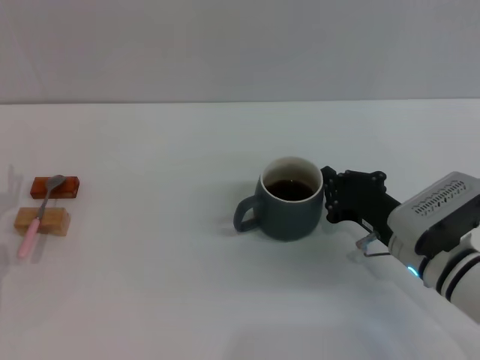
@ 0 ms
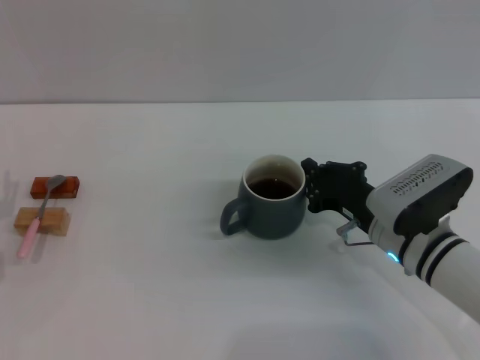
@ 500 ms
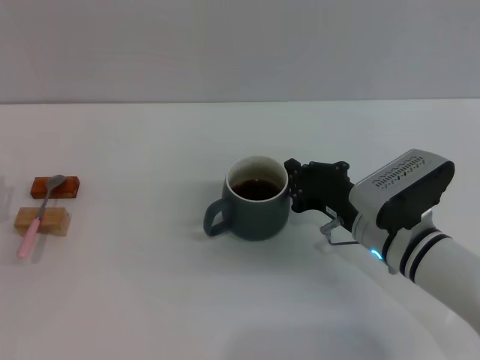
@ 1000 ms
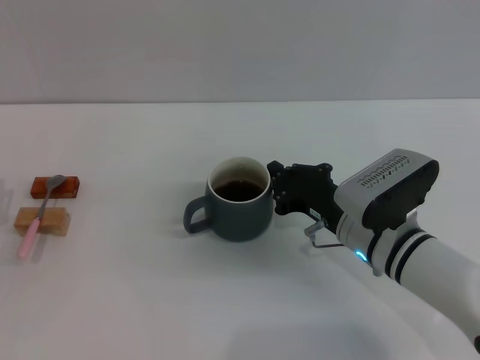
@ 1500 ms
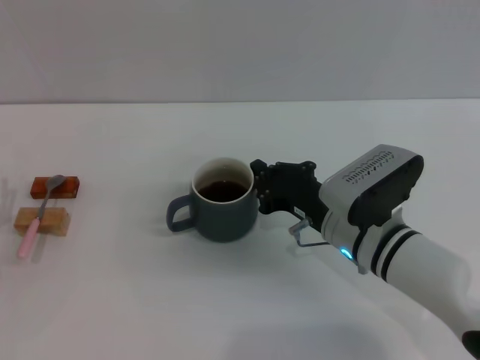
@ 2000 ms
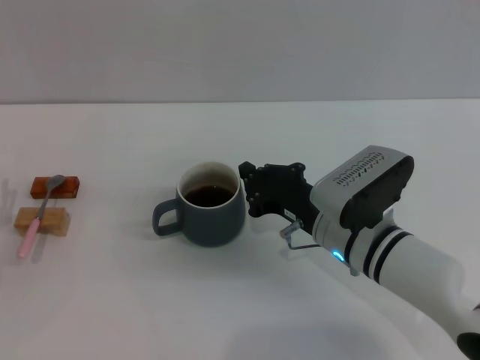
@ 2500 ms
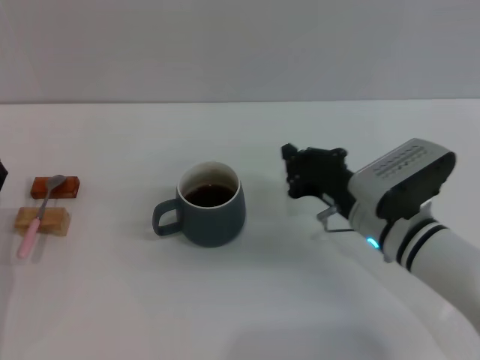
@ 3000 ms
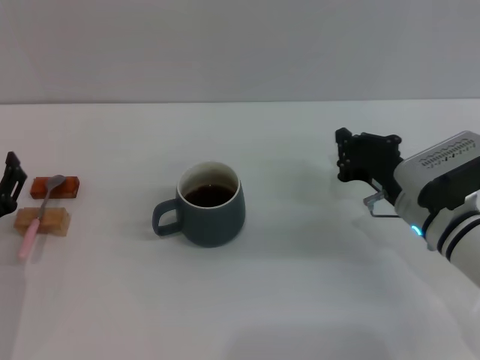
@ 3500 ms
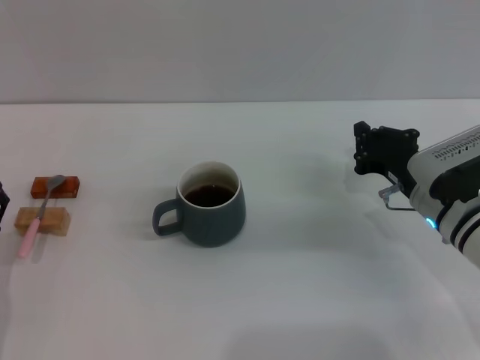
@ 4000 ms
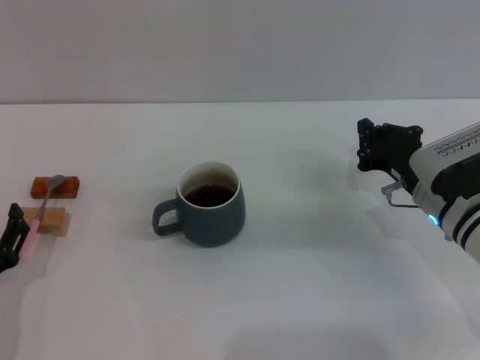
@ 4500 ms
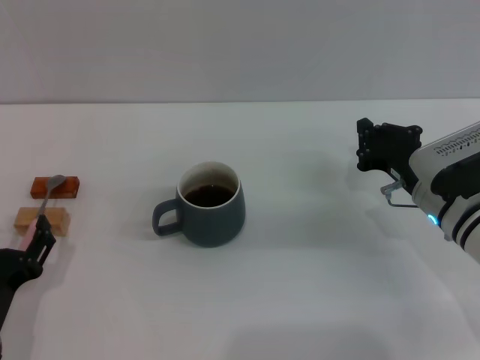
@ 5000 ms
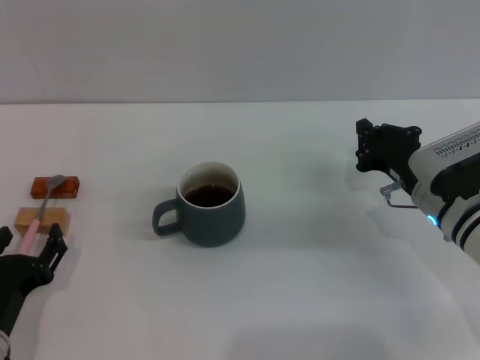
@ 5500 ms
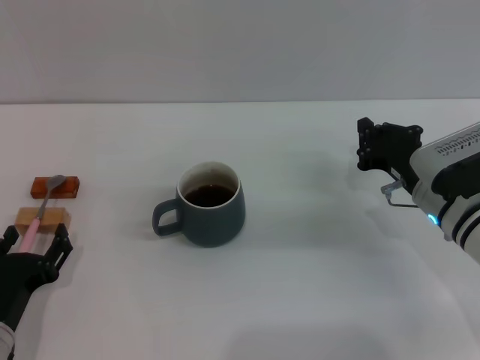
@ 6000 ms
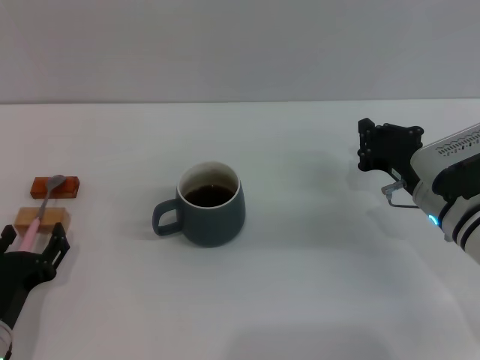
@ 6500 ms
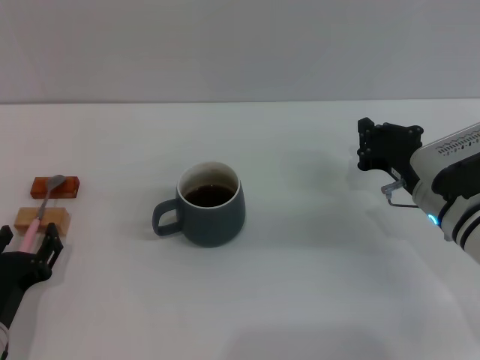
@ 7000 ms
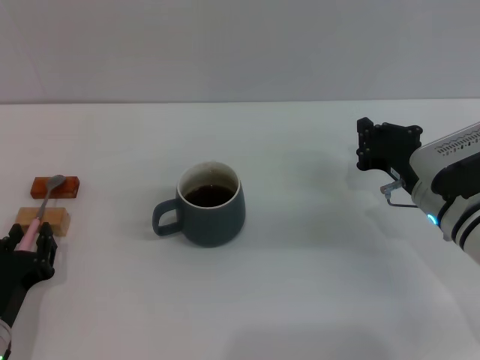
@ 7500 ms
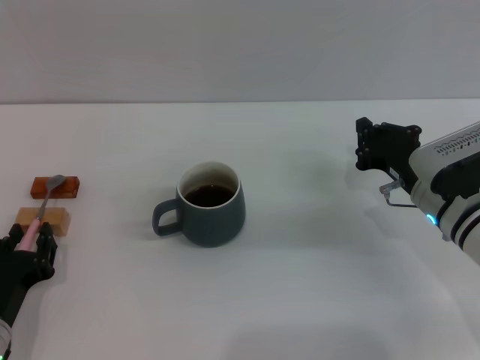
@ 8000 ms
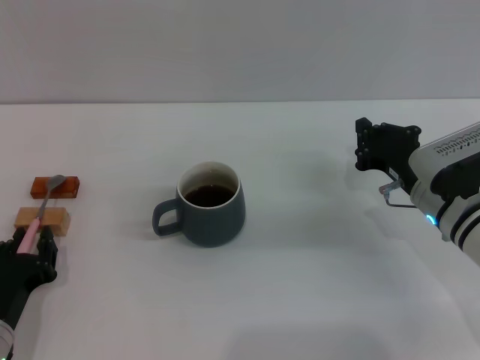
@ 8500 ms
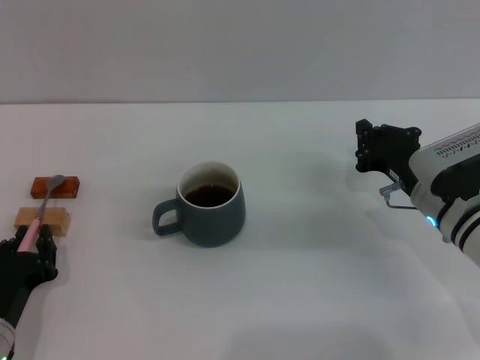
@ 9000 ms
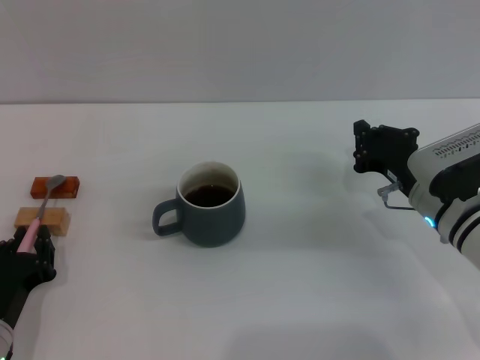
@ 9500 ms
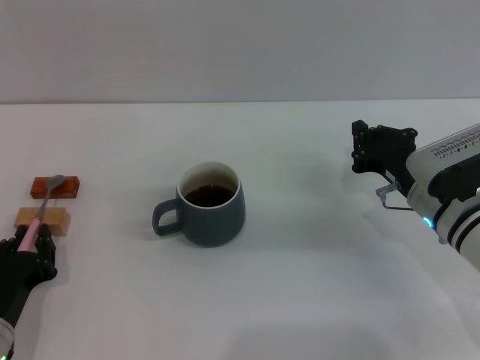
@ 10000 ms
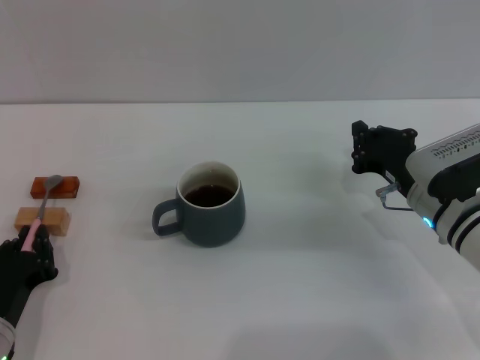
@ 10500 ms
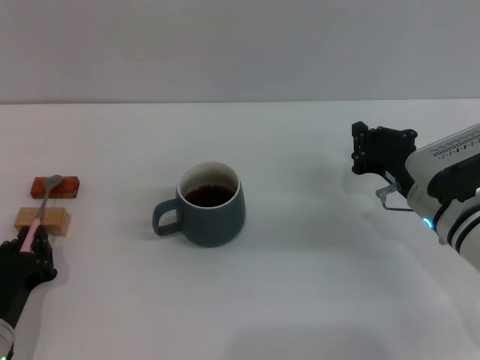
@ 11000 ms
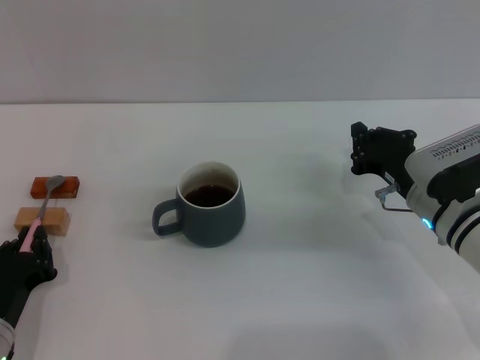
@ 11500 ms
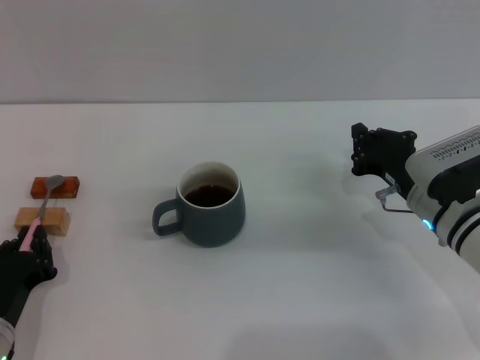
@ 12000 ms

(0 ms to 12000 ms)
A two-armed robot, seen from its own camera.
Task of the whole recording: Move the grey cup to the center, lift the pink spoon, stir it three times in the cup, and put the spoon into the cup.
Step, 0 ms - 3000 ms: Move the cup with coffee to the center of view with the right gripper.
0 ms - 2000 ms: The right gripper goes some 5 cm to the left.
2000 ms - 4000 ms: The left gripper moves approximately 5 cm, while the right gripper shifts roughly 10 cm to the right.
4000 ms - 6000 ms: There are only small adjustments of the grippers.
6000 ms - 8000 ms: The left gripper closes up.
8000 ms - 12000 ms: Neither gripper changes place.

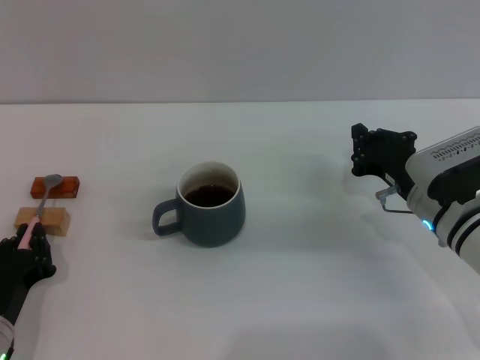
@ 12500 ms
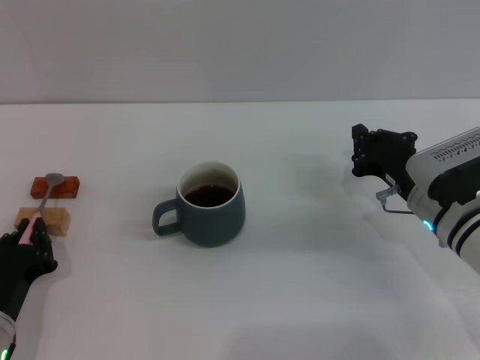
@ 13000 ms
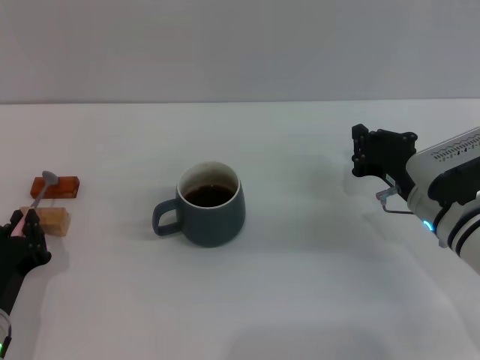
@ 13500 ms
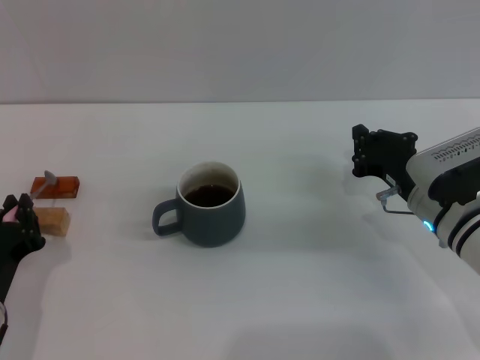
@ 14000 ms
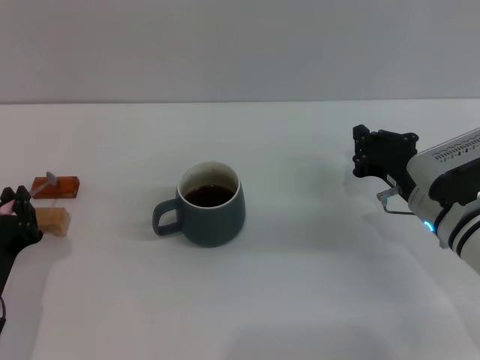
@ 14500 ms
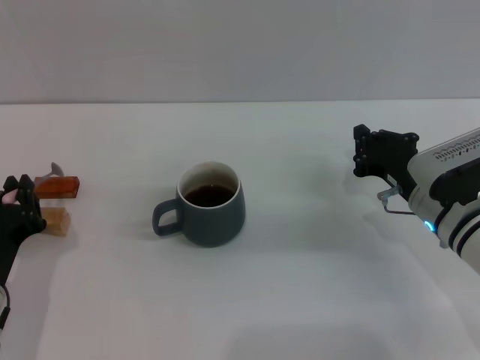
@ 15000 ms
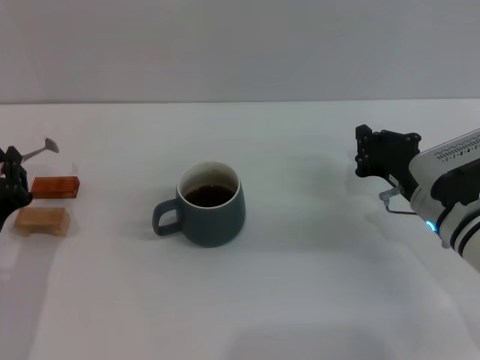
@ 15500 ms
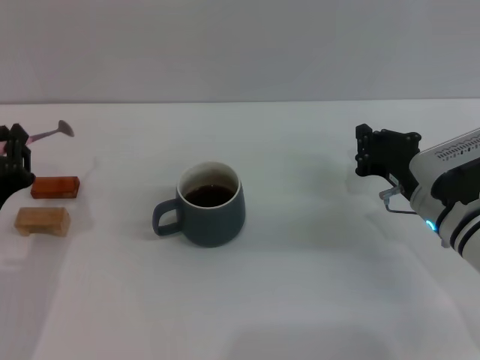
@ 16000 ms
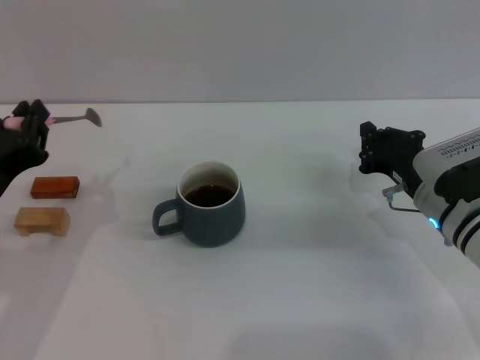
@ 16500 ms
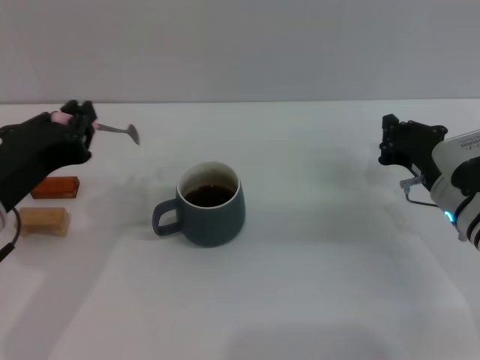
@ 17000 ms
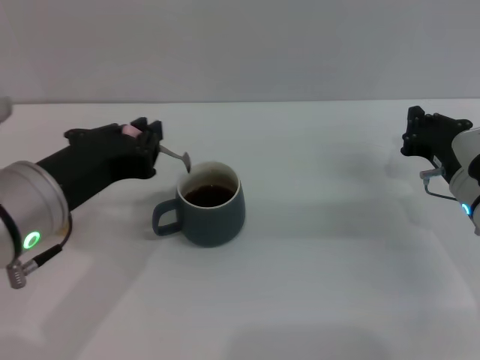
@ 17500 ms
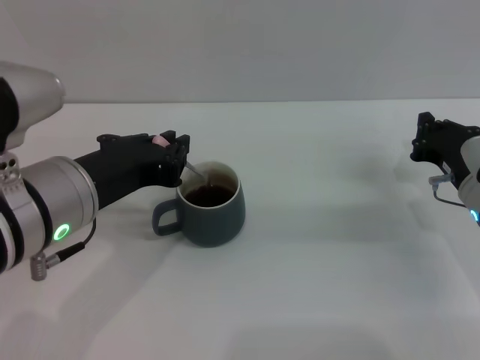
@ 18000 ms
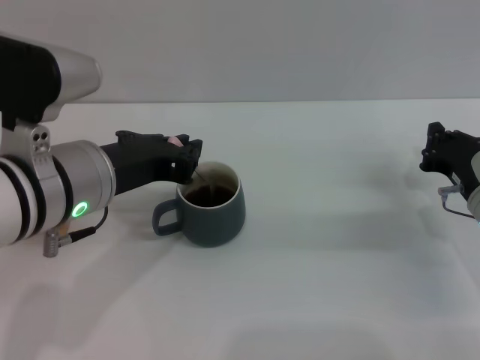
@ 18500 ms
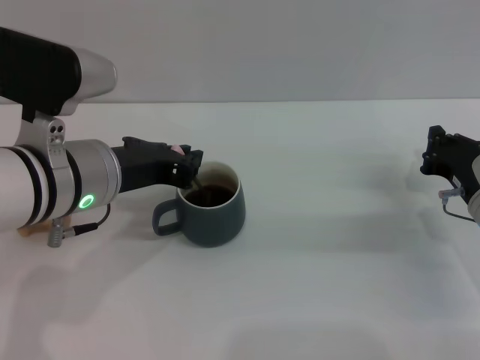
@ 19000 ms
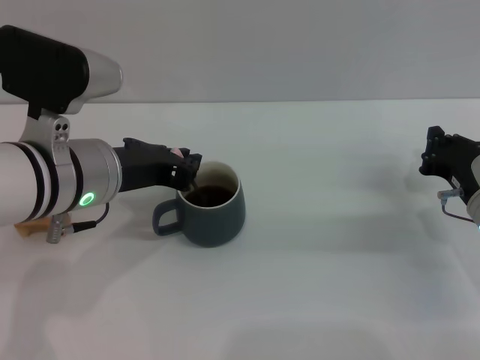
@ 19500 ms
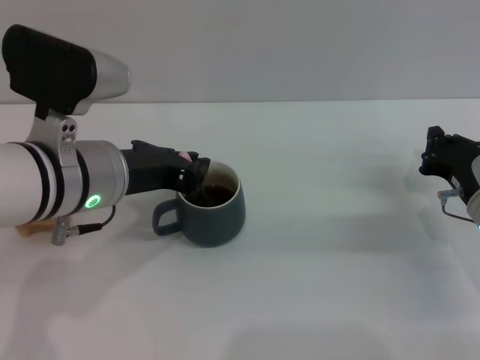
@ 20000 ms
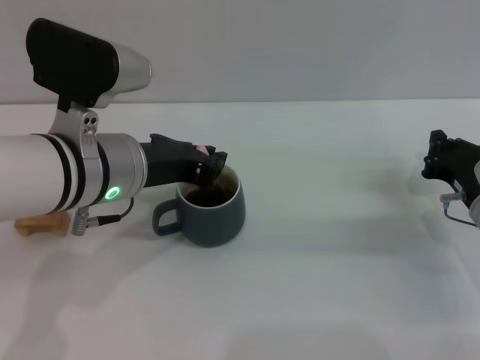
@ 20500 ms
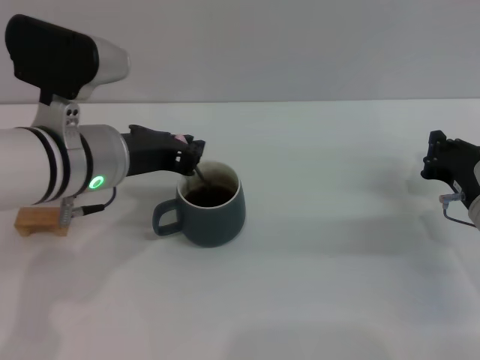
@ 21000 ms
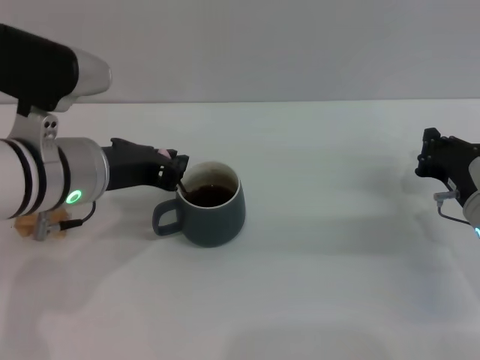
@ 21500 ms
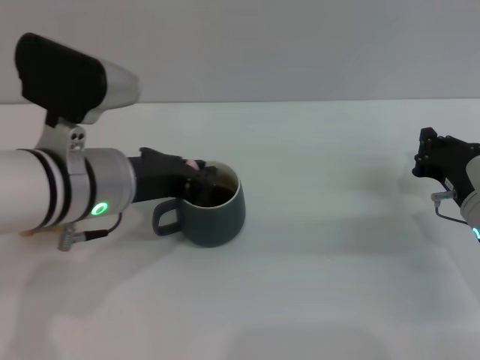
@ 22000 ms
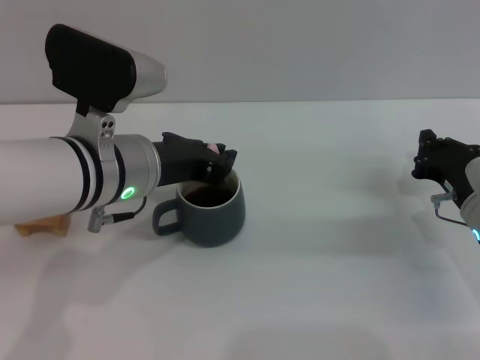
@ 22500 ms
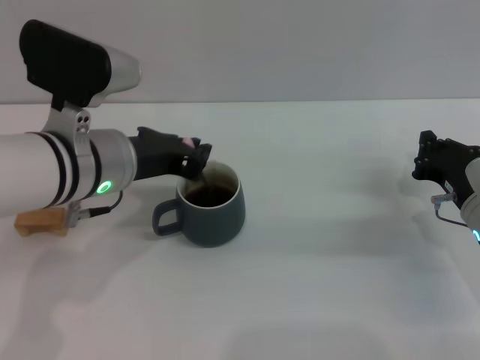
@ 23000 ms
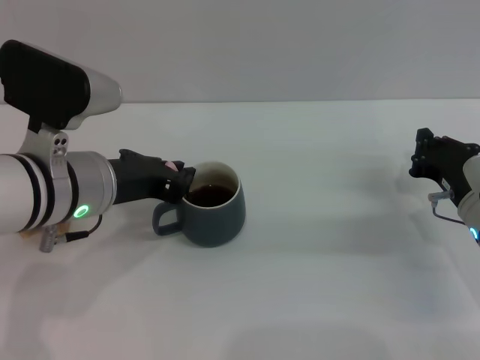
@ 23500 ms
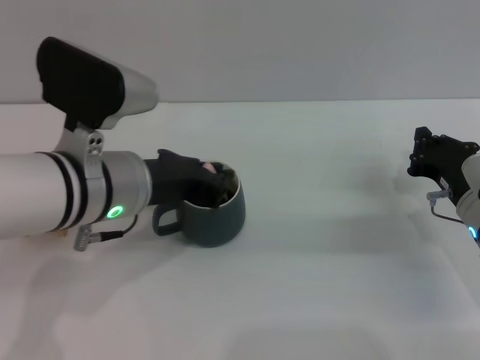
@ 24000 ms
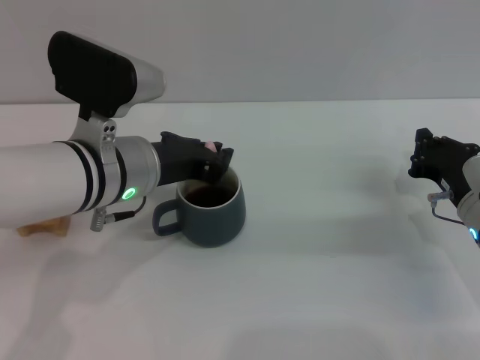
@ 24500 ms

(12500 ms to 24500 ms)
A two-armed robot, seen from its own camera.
Task of the whole recording: Move the grey cup to the center, lift the pink spoon, stir it three times in the cup, and put the spoon into the cup.
Step, 12500 ms - 15000 ms: Pick up the spoon with the left gripper.
12500 ms - 14500 ms: The grippers move only a little.
14500 ms - 16500 ms: The left gripper is displaced upward by some 10 cm.
16500 ms - 18500 ms: The left gripper travels to the right and upward by roughly 10 cm. Meanwhile the right gripper goes some 5 cm to the right.
18500 ms - 22500 ms: The grippers stay close to where they were, moving slightly.
22500 ms - 24500 ms: There are only small adjustments of the grippers.

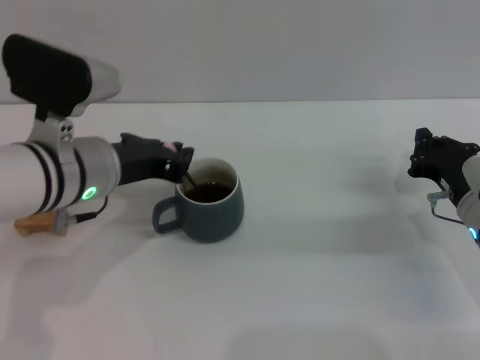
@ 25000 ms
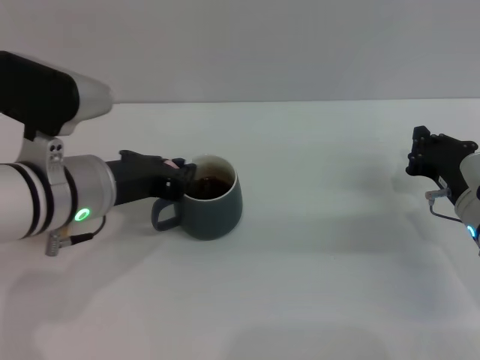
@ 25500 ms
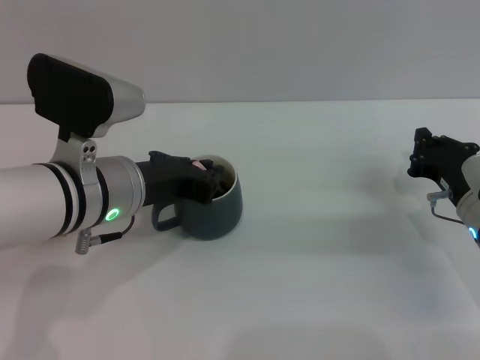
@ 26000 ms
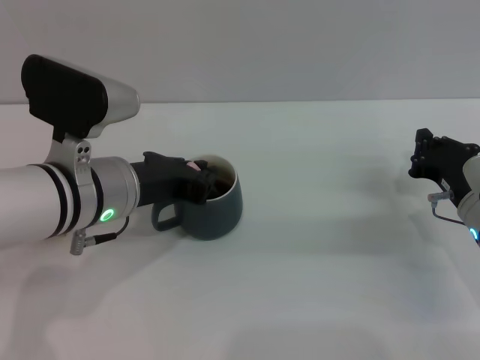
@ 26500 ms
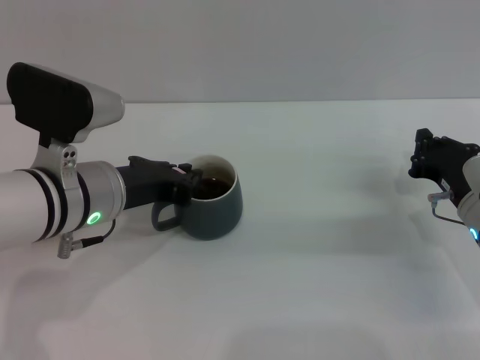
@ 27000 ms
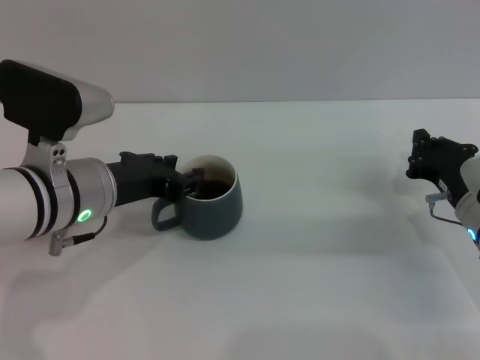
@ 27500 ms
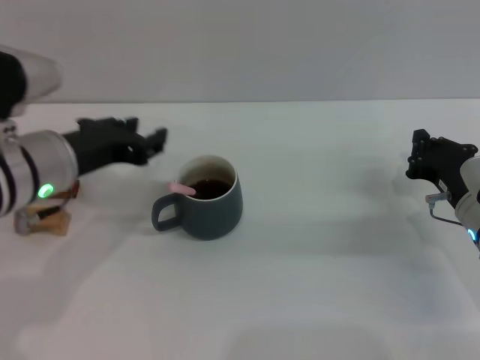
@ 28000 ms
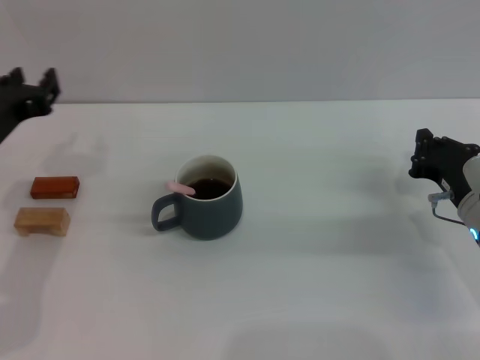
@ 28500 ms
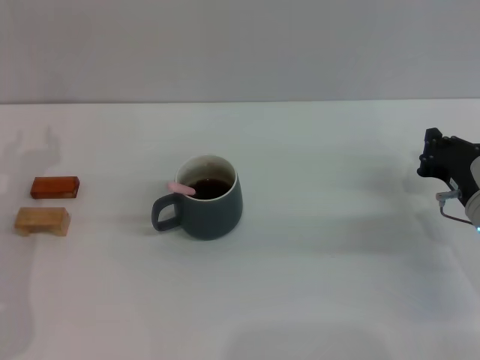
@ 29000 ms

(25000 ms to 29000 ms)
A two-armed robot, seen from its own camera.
Task of the whole recording: Move the grey cup to the center, lift the pink spoon, stir it three times in the cup, and put the spoon into the cup.
Step, 25000 ms - 28000 ms: Stir the coffee in the cup with the left gripper.
25000 ms - 27000 ms: The grippers move only a little.
27000 ms - 29000 ms: The left gripper moves to the left, about 15 cm, and opens.
